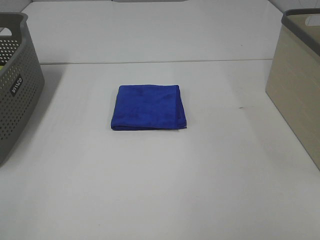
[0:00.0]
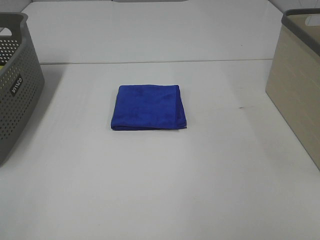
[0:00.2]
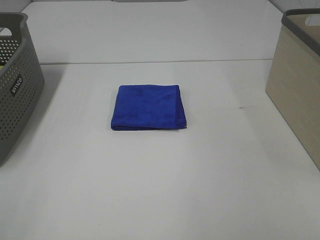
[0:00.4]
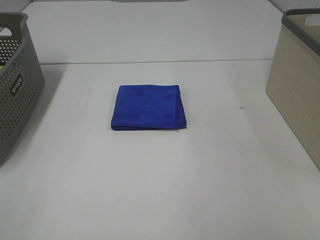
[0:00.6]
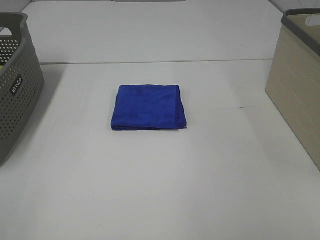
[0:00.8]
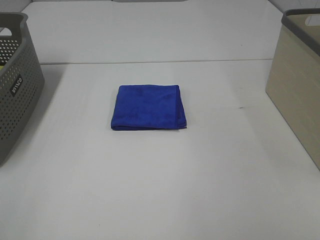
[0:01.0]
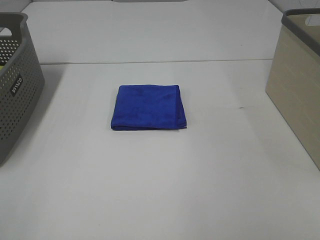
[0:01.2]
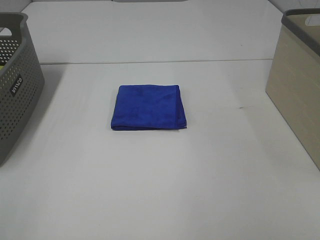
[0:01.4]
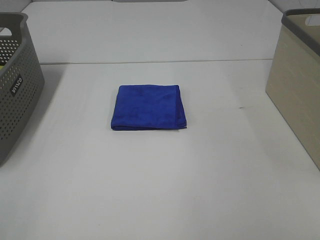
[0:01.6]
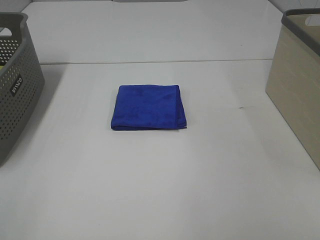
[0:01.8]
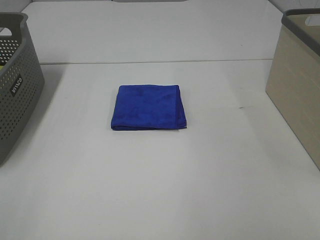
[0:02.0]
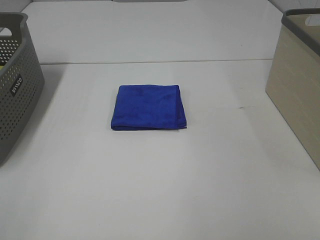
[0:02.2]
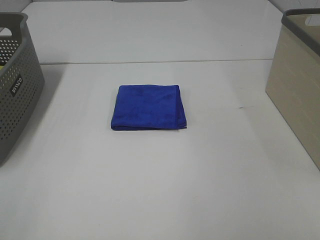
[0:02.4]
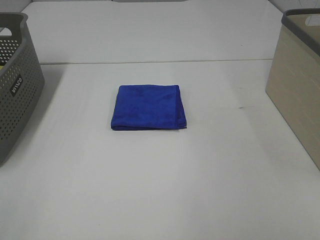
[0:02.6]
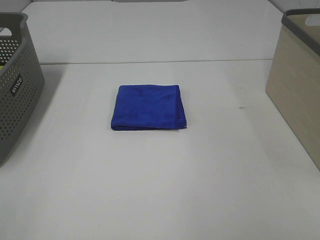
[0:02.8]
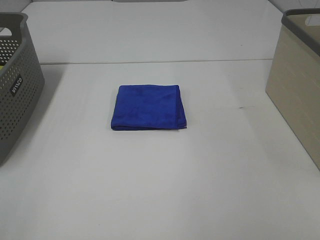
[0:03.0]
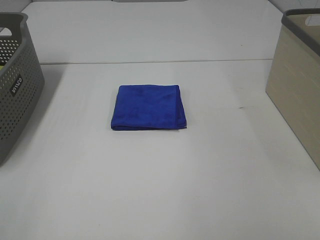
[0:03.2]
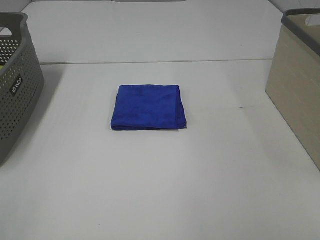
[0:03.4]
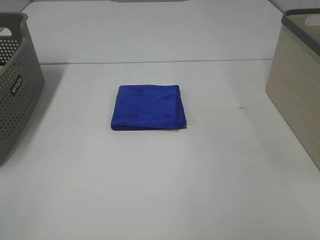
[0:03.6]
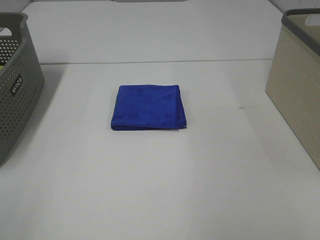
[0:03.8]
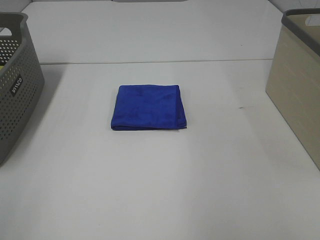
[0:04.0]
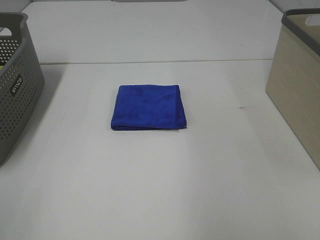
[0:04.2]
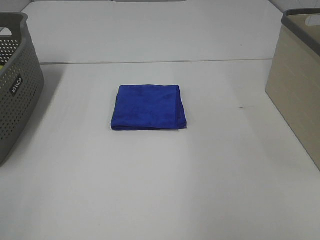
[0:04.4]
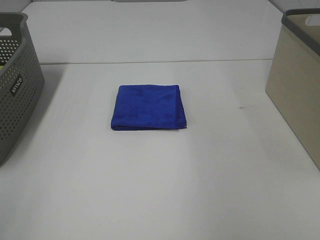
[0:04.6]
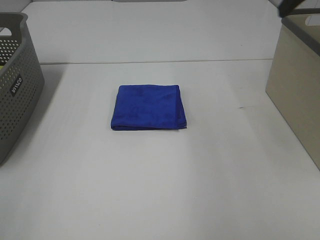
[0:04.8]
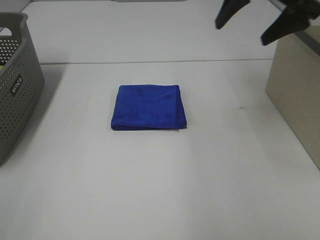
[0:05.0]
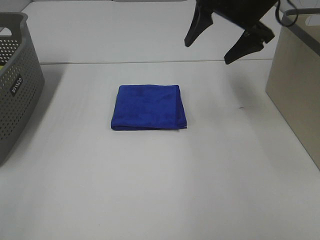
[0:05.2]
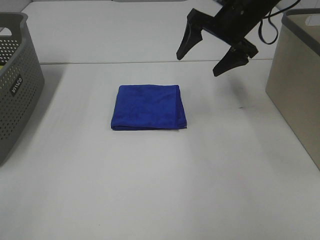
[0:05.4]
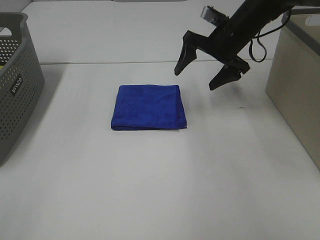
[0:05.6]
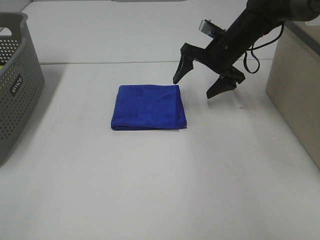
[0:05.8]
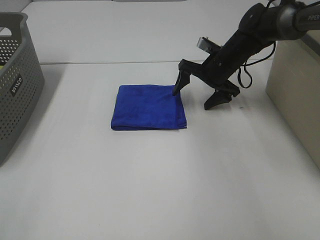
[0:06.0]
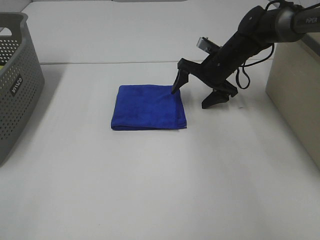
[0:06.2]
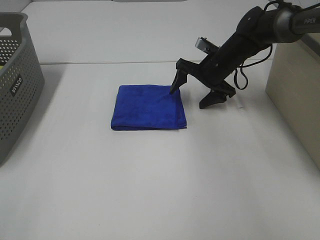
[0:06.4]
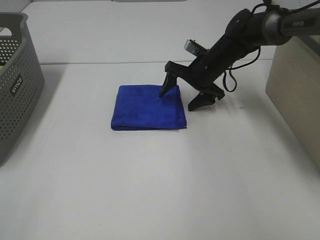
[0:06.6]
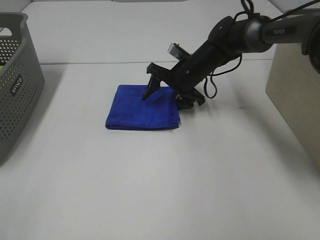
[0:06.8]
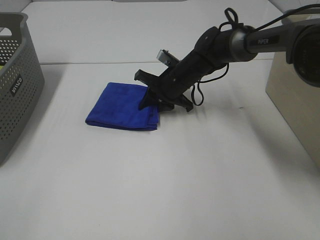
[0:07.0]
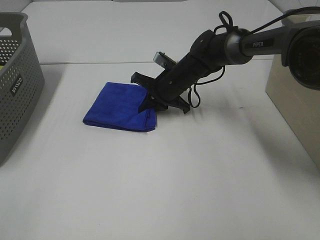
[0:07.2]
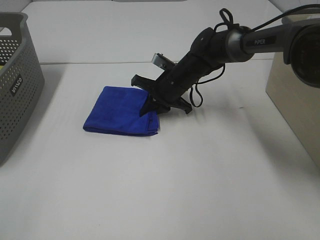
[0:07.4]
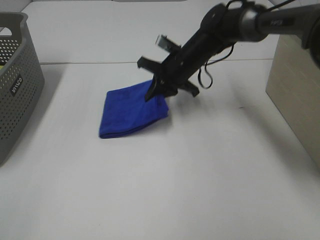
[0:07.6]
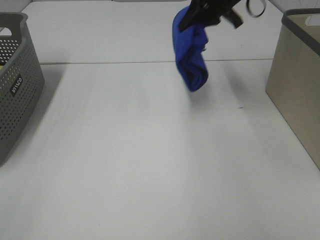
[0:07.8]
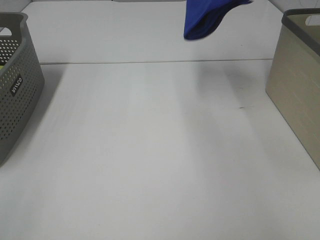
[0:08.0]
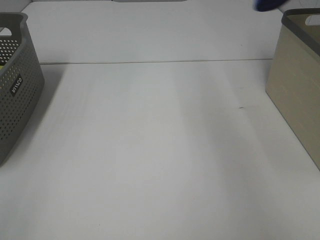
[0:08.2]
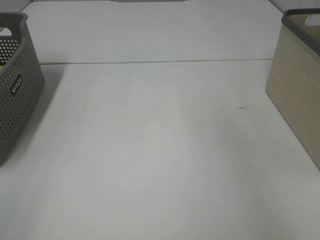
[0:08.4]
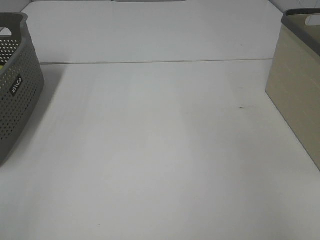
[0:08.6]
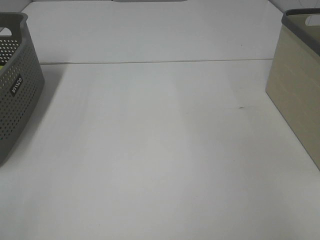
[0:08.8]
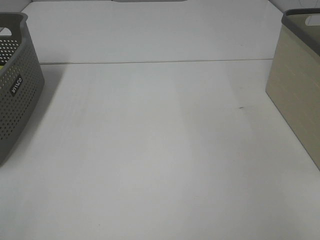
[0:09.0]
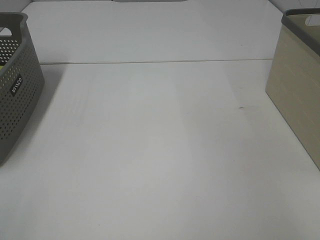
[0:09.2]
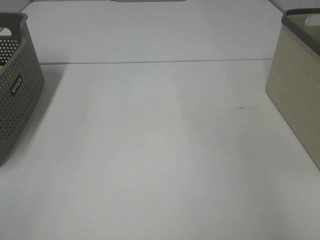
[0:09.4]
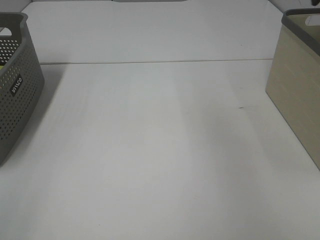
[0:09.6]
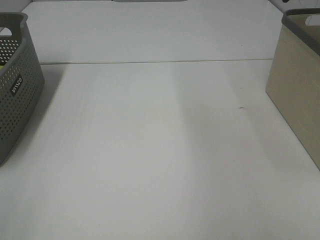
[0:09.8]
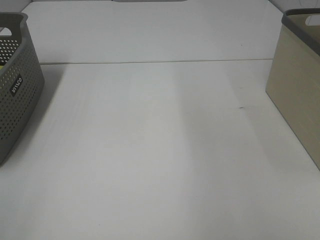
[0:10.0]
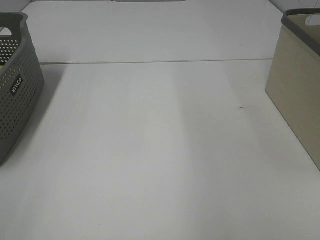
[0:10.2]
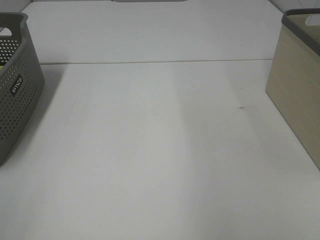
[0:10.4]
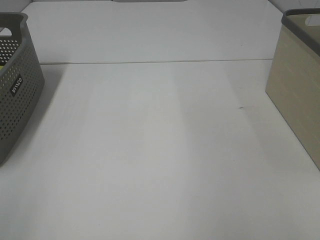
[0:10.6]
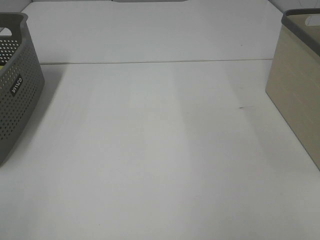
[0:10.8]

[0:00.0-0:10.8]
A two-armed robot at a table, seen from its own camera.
Step, 0:00.0 to 0:07.2: Right hand: grab the folded blue towel.
Step, 0:07.4 to 0:09.4: Right hand: place the blue towel in right basket.
0:00.0 to 0:03.0: Both grippers stay put.
0:04.6 to 0:06.2: The right gripper moves downward, forward and to the left, roughly 40 cm.
0:06.2 to 0:07.8: The right gripper is displaced upward by about 20 cm, and closes up.
0:07.8 to 0:09.2: The right gripper shifts about 30 cm to the right, and opens.

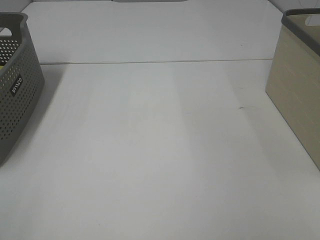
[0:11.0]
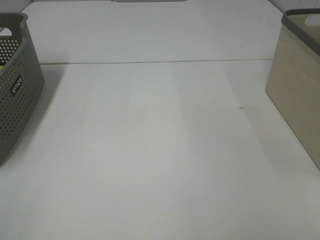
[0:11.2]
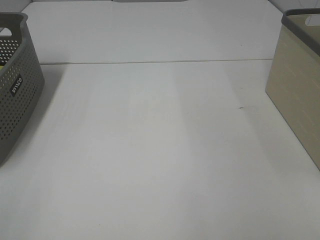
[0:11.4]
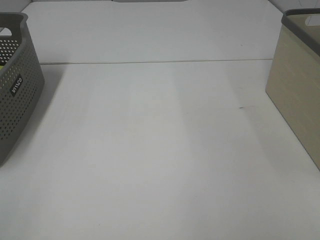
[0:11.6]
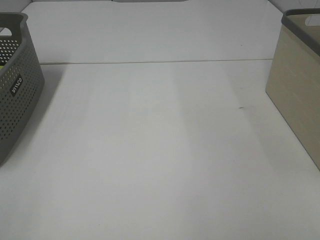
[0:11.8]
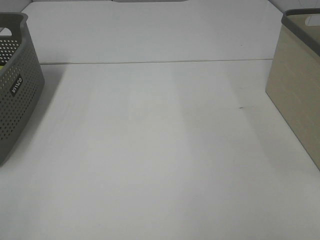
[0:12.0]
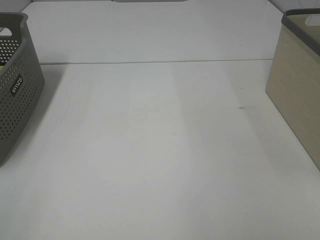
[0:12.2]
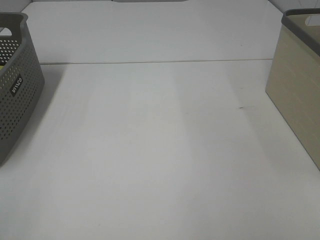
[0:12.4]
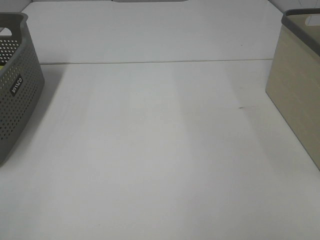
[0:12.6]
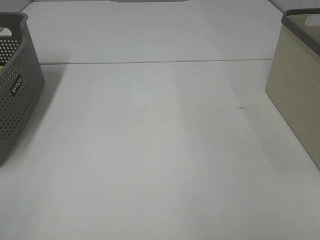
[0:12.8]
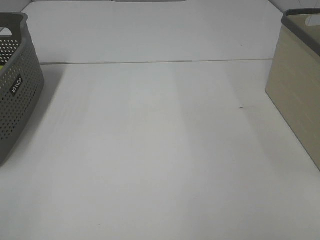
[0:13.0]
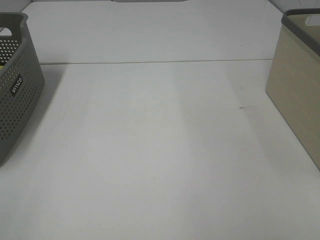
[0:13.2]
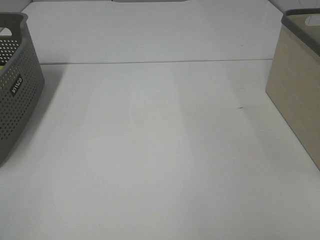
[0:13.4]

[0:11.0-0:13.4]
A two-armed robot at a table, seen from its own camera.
0:12.2 to 0:13.4: The two grippers keep their place.

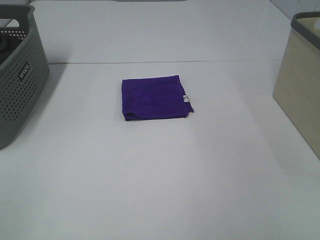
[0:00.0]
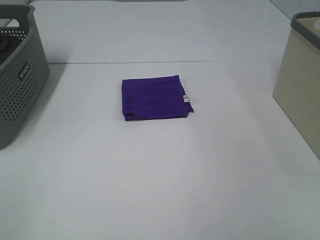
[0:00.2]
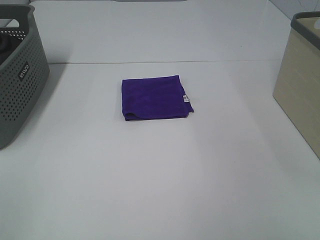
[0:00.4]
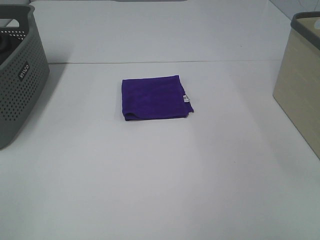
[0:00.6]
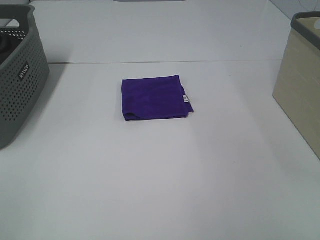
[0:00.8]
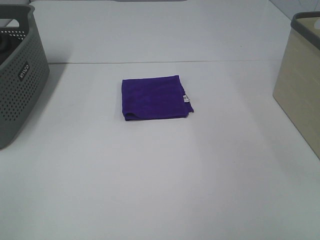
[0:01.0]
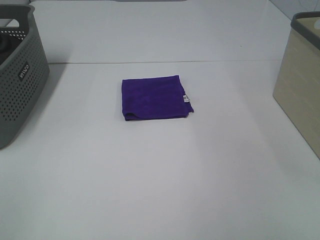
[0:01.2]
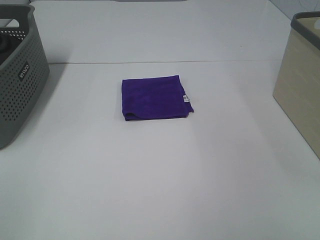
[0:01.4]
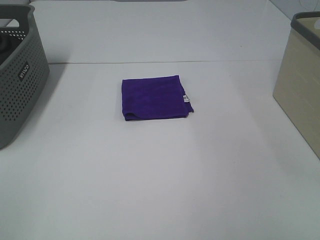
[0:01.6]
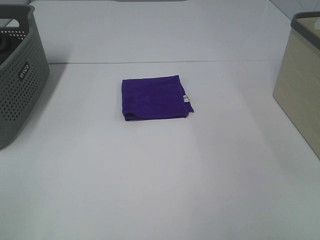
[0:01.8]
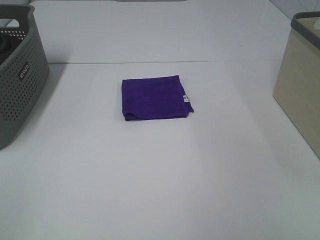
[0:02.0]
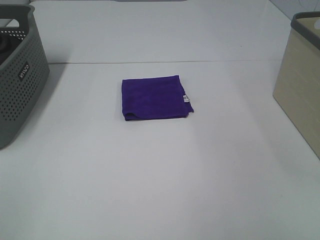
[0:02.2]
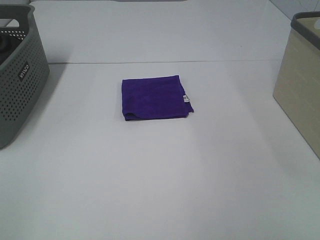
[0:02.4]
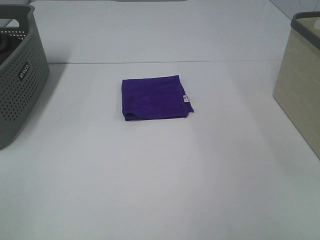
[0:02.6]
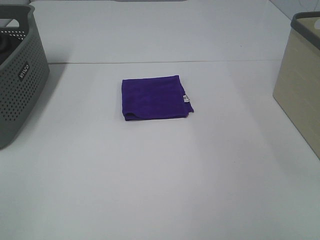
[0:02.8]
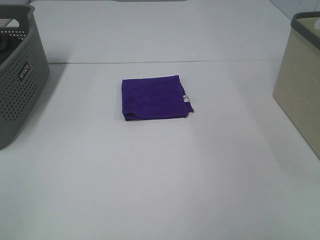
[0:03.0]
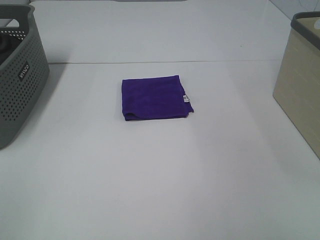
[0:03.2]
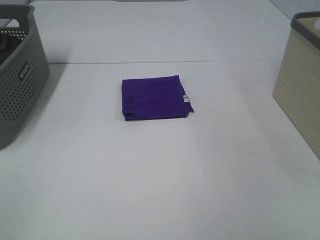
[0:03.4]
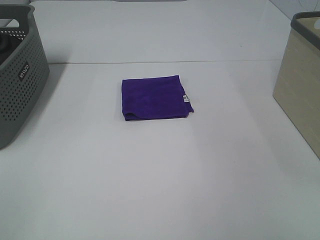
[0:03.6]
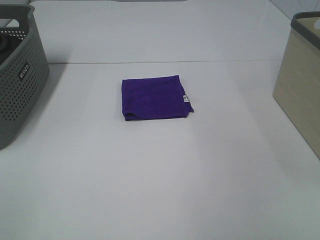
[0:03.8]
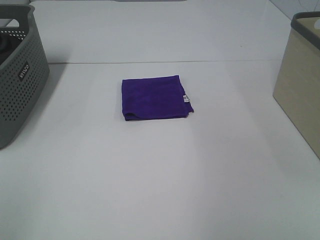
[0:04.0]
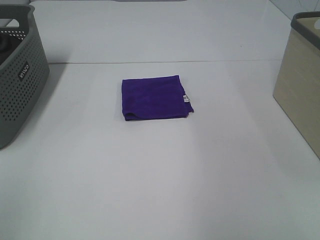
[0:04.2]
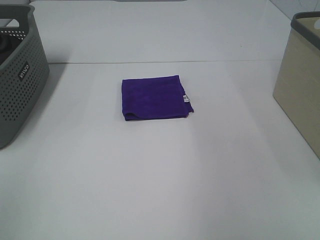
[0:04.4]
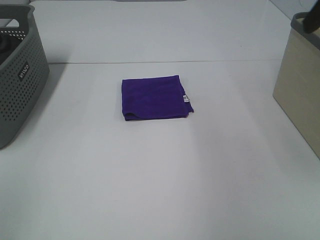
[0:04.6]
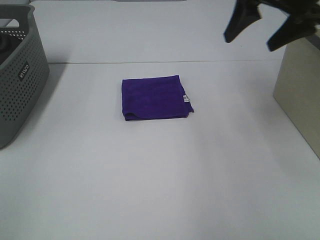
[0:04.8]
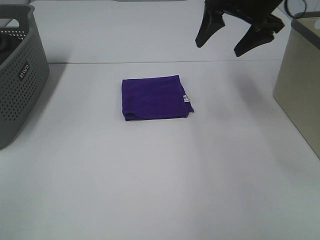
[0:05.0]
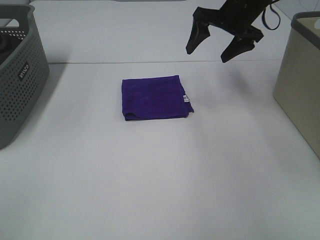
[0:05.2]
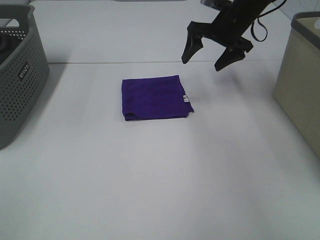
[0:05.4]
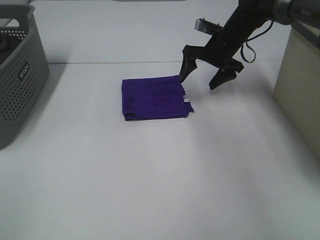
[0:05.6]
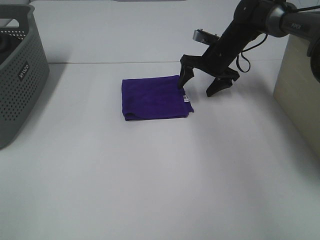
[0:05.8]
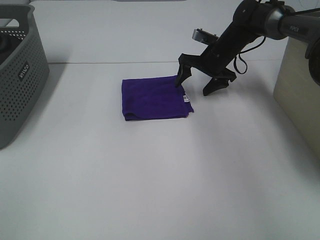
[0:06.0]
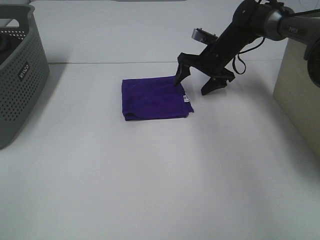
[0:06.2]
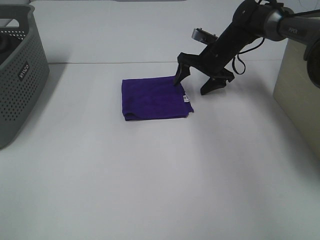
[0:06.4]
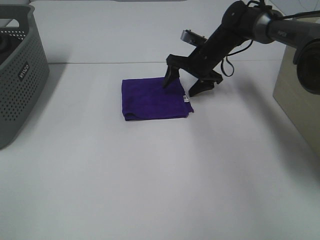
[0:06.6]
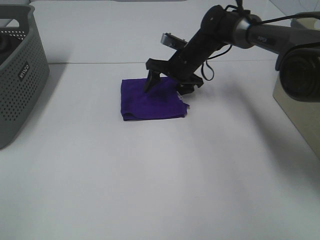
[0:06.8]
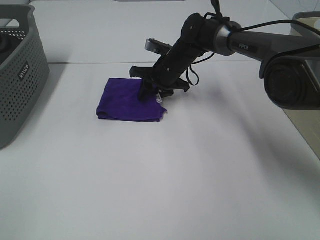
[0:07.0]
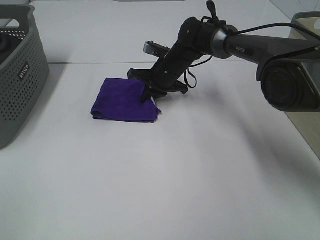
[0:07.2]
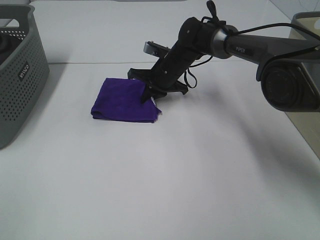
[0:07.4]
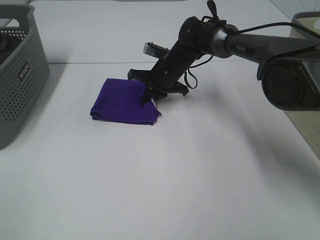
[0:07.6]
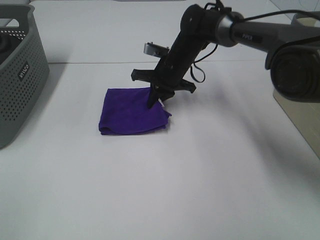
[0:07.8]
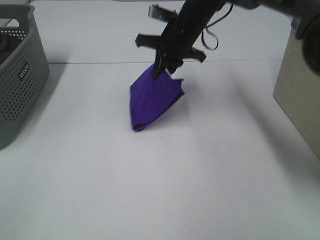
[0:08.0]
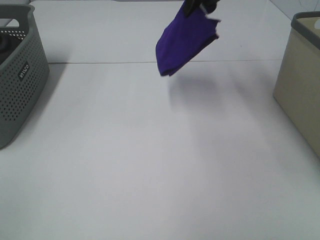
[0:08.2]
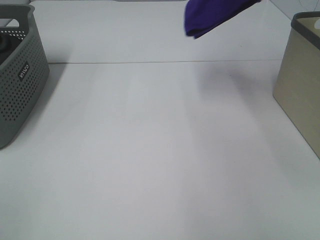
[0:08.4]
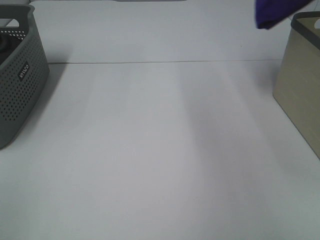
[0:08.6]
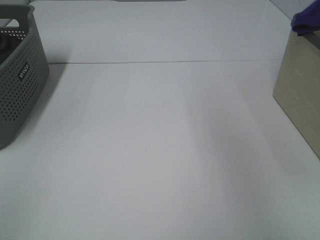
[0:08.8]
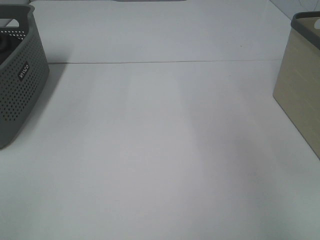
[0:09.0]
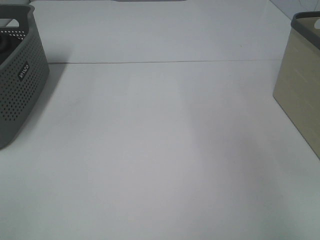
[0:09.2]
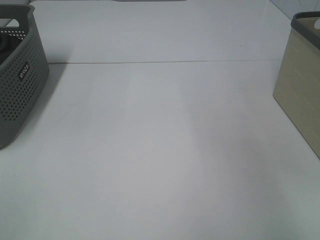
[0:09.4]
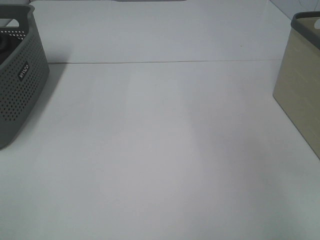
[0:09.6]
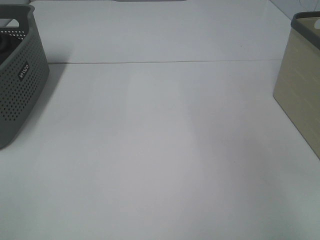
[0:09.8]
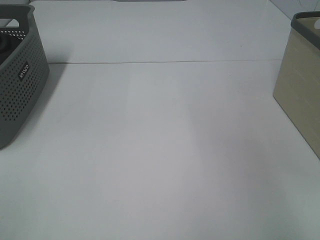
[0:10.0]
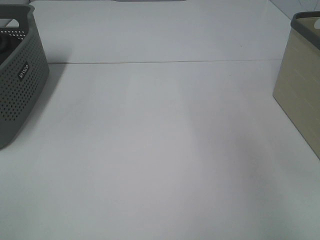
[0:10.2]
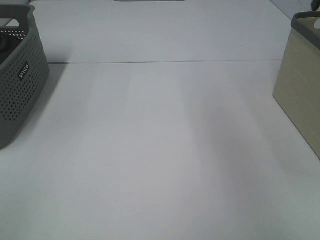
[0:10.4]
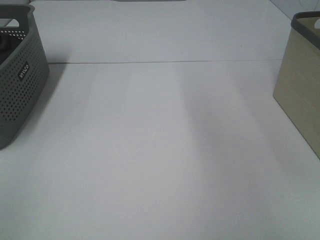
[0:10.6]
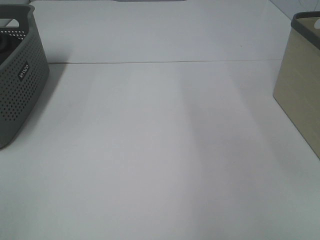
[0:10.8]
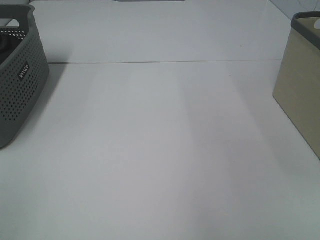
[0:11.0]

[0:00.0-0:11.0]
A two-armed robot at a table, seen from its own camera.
Step, 0:00.0 to 0:07.2: Right hand: grab the folded purple towel.
Step, 0:07.4 to 0:09.8: Right hand: place the purple towel in right basket.
0:00.0 to 0:03.2: Both grippers stay about where they are.
0:03.2 to 0:04.8: The right gripper travels forward by about 35 cm.
0:04.8 to 0:06.2: The right gripper moves downward and forward, some 25 cm.
0:06.2 to 0:07.8: The right gripper heads to the left and backward, covering roughly 10 cm, and closes.
0:07.8 to 0:09.4: The right gripper moves to the right and upward, some 40 cm.
